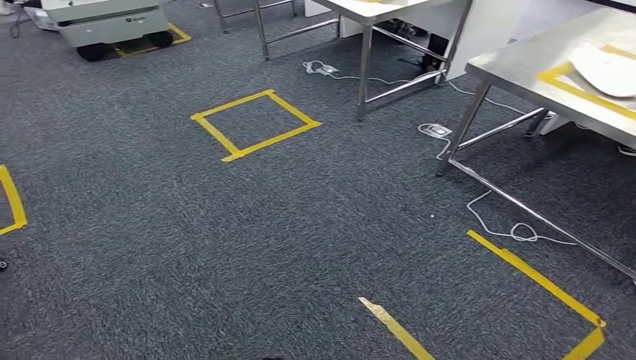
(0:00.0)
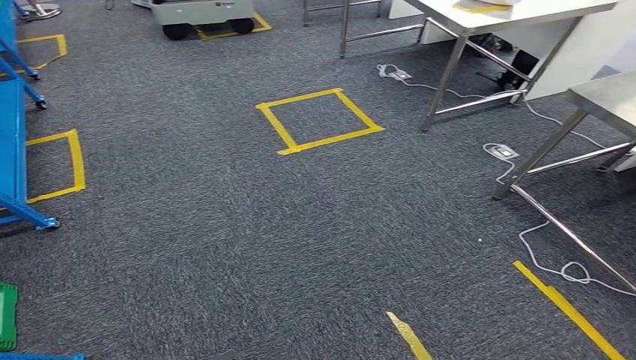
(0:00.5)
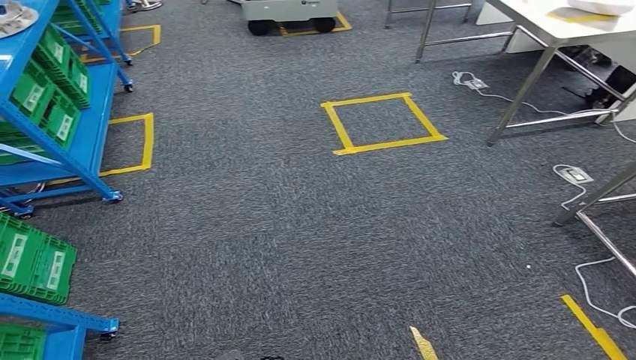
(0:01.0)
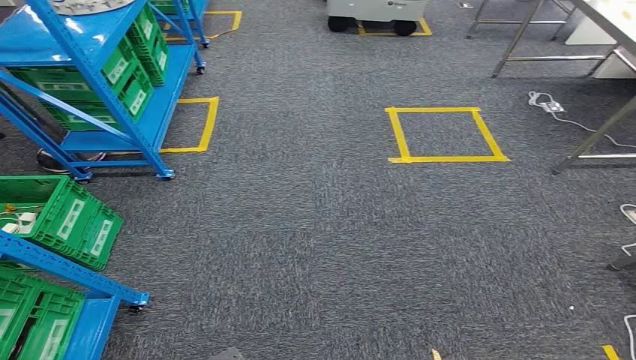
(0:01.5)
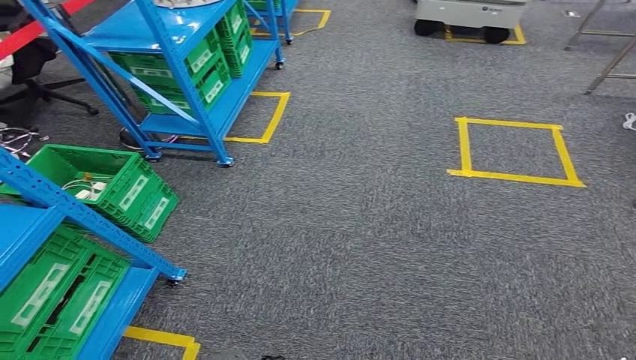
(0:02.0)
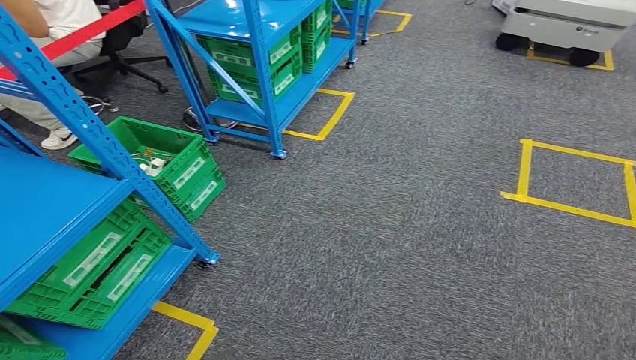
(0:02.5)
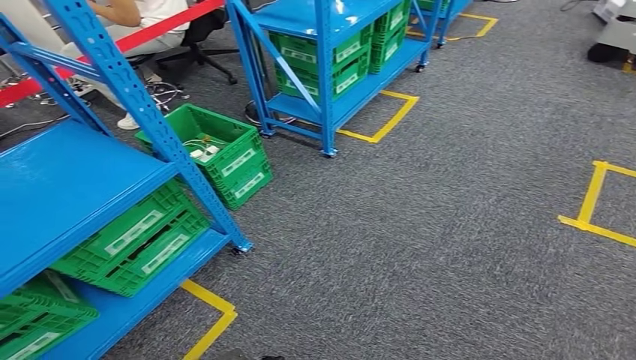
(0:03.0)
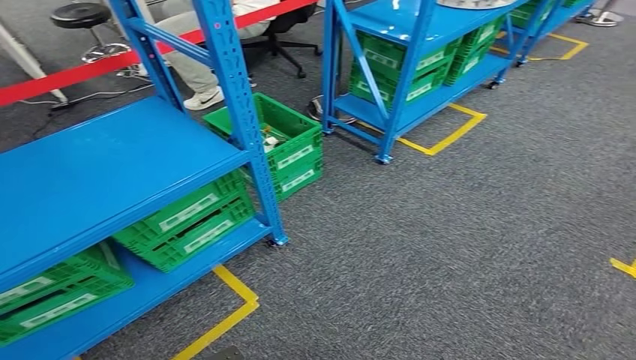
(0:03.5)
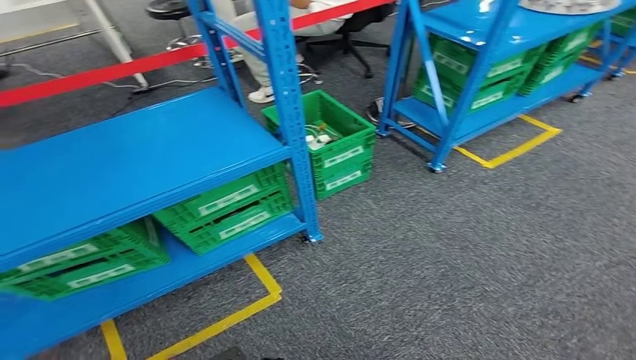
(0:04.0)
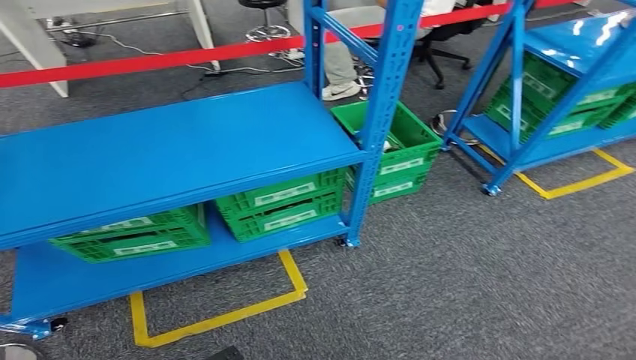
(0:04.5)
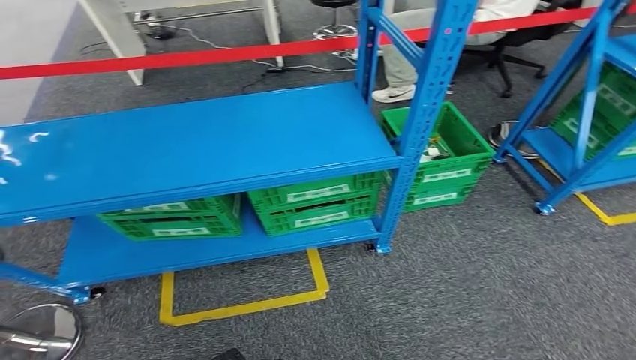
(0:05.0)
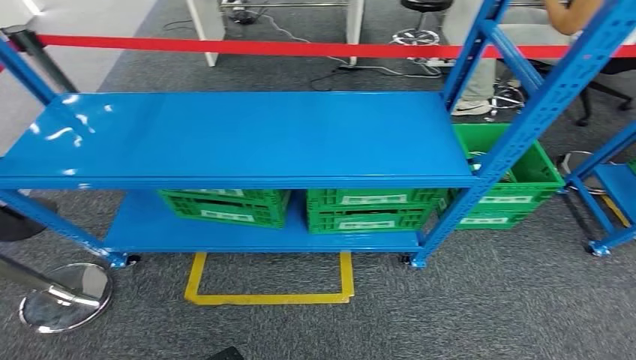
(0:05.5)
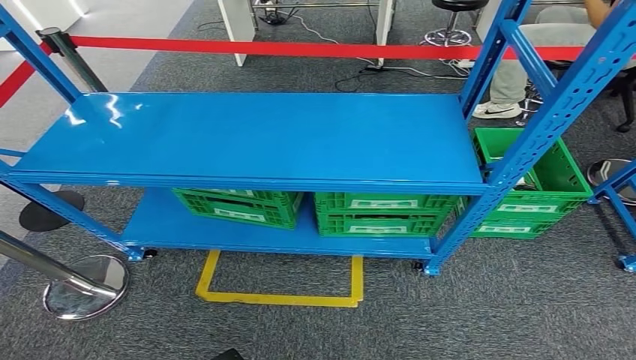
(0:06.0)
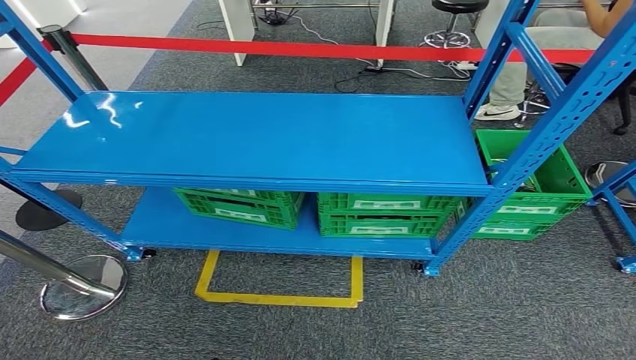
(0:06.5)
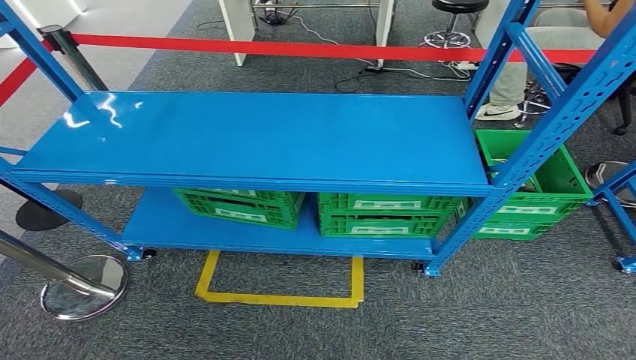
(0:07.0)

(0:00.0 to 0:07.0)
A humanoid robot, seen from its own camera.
Step, 0:00.0 - 0:07.0: Move to the initial position at the workbench.
